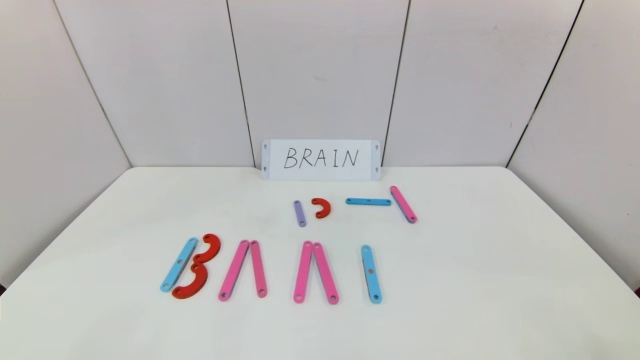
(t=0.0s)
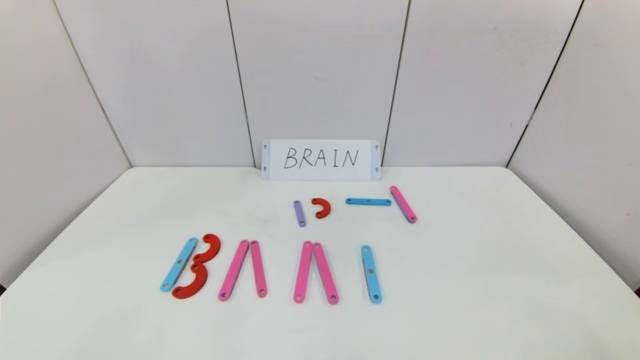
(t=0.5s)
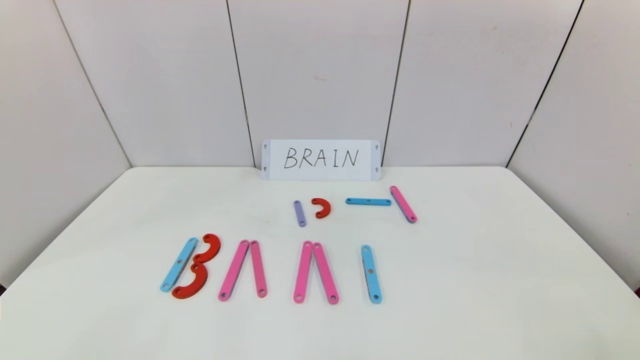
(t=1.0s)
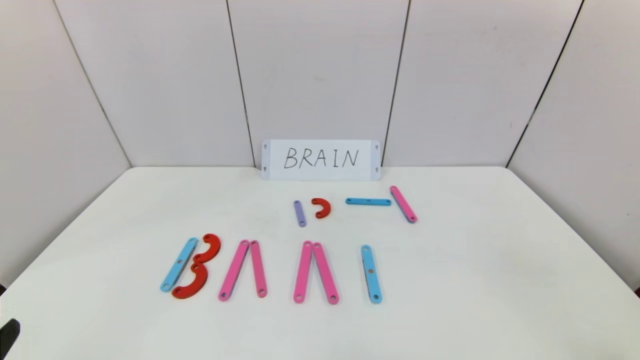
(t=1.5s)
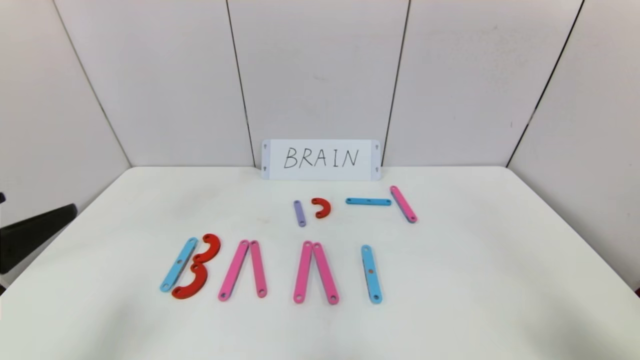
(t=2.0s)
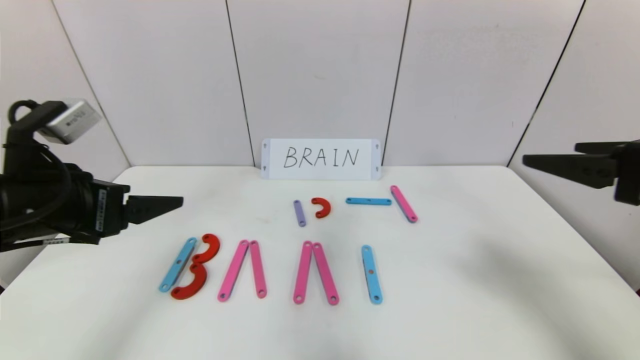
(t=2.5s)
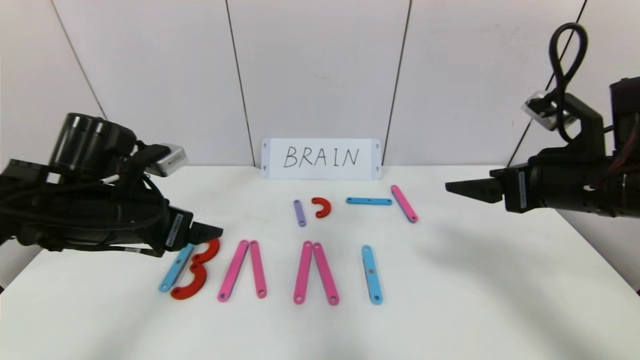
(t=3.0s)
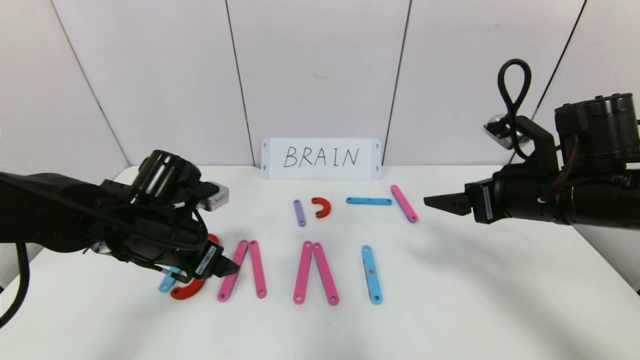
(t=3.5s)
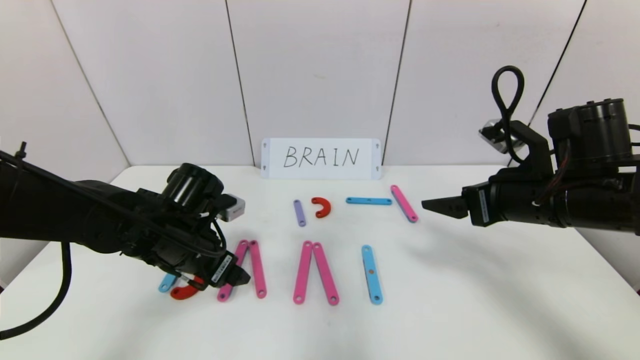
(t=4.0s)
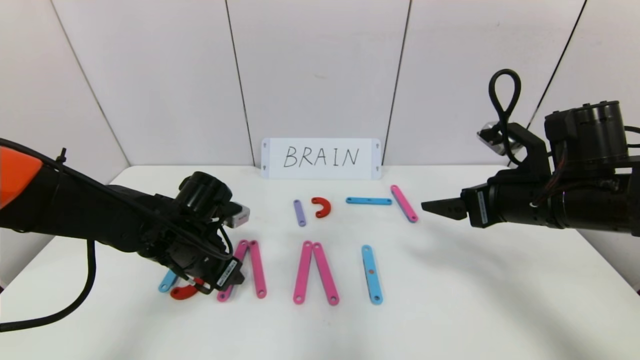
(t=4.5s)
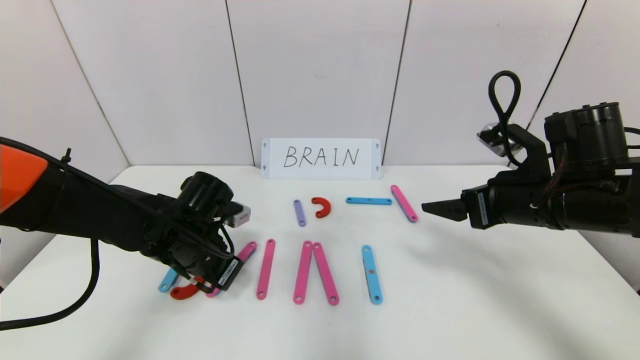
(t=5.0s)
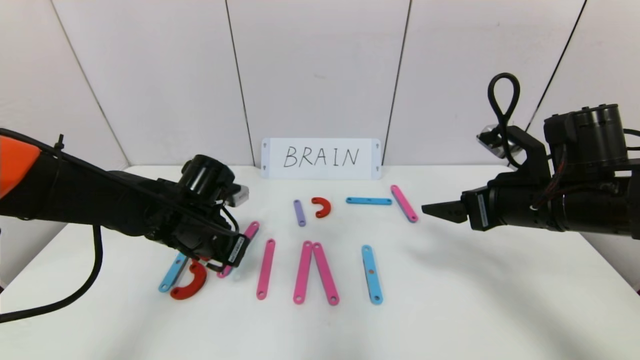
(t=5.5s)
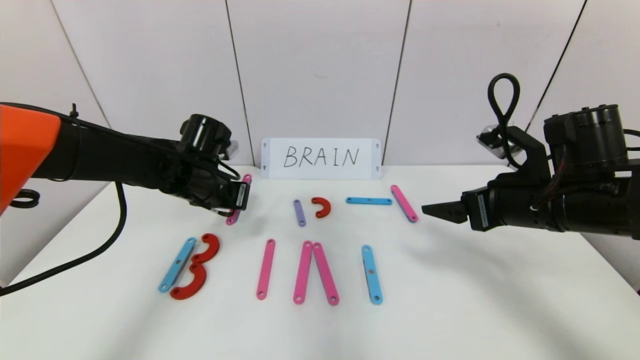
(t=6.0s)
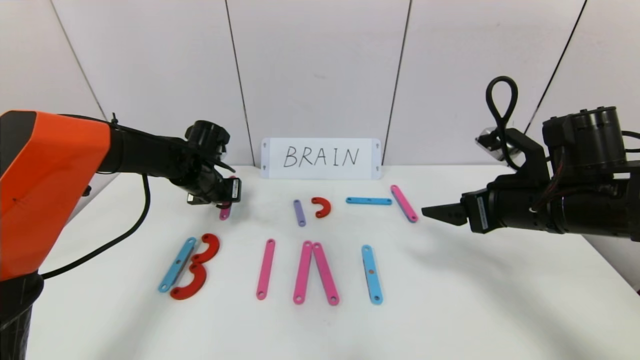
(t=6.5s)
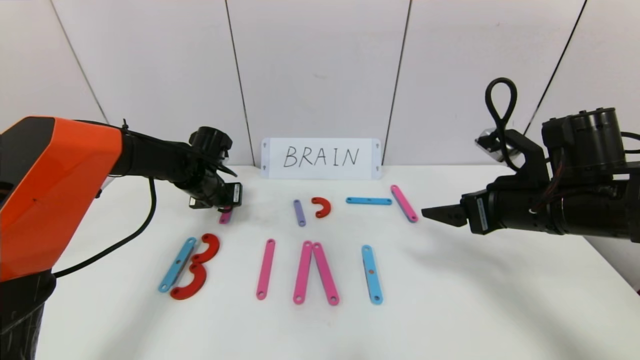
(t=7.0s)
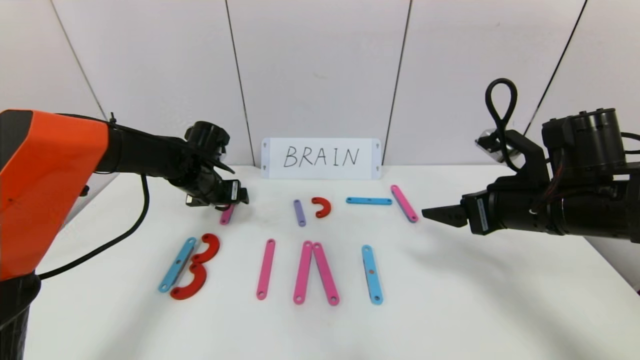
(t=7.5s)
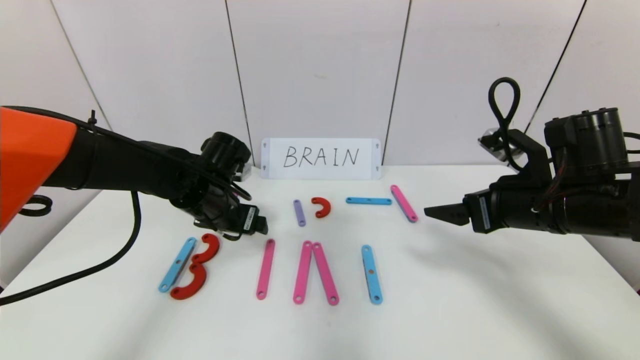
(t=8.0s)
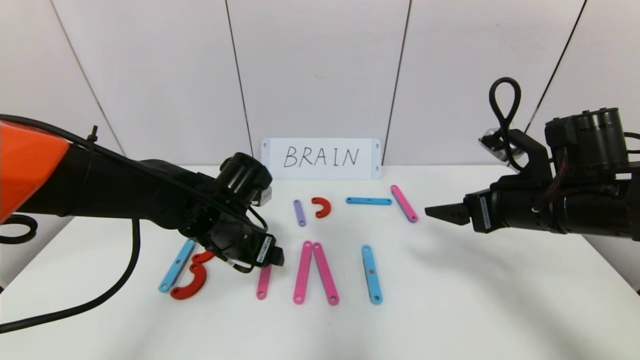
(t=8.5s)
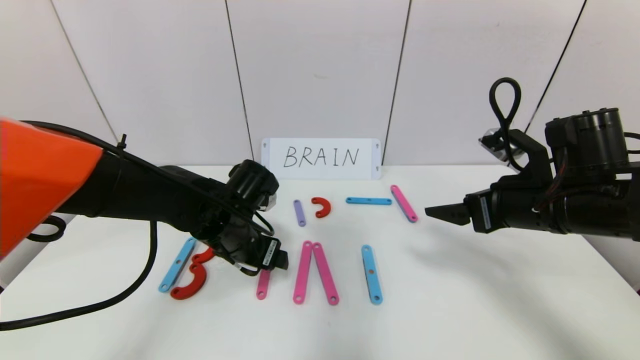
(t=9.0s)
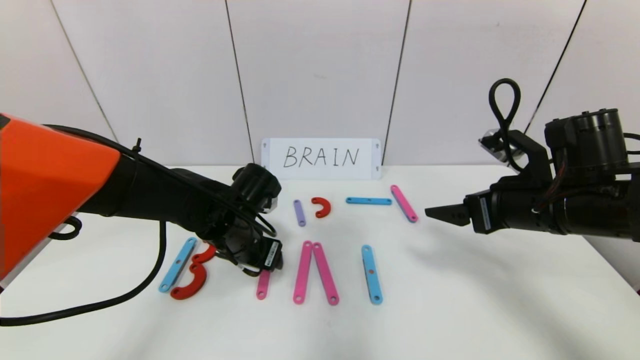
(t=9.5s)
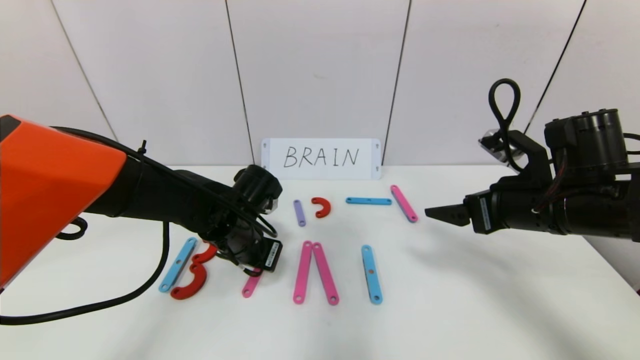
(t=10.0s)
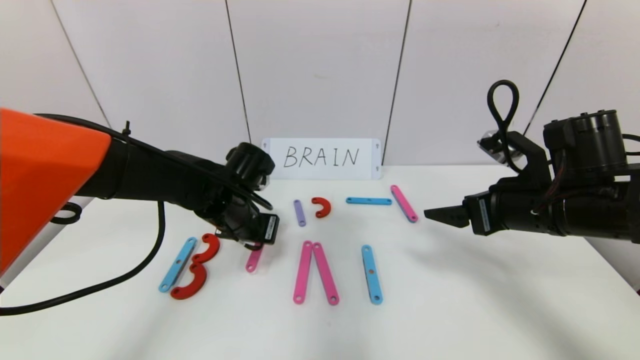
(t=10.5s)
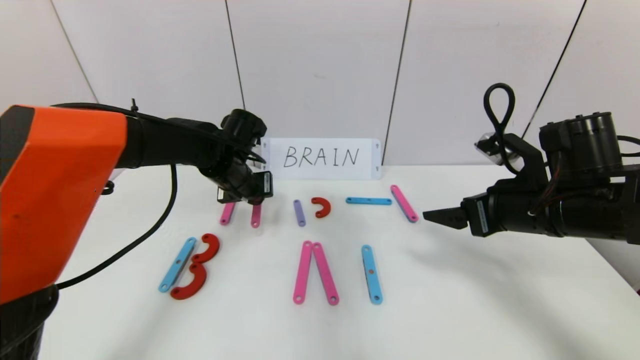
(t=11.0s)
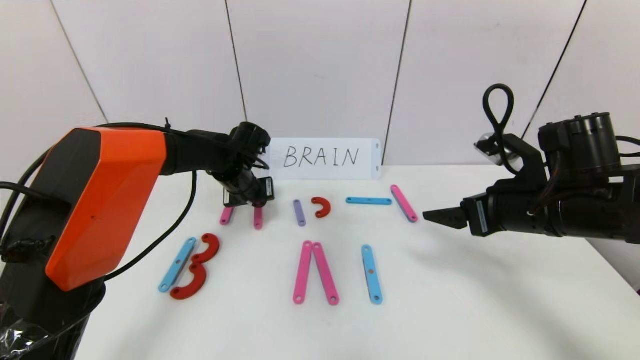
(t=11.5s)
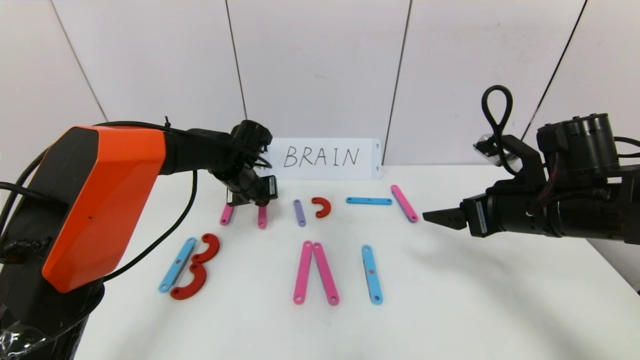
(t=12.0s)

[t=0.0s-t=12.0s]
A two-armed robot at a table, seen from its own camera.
Task of the whole recording: rearrange the word baai as brain.
t=0.0s to t=2.0s: The grippers both shift upward and forward by roughly 20 cm.
t=2.0s to t=4.0s: The left gripper is displaced forward, downward and to the right by roughly 25 cm, while the right gripper is displaced forward by some 20 cm.
t=4.0s to t=6.0s: The left gripper heads forward, covering some 10 cm, and closes its fingers.
t=6.0s to t=8.0s: The left gripper reaches roughly 5 cm forward, then returns, and opens up.
t=8.0s to t=10.0s: The left gripper moves approximately 5 cm, and closes.
t=10.0s to t=12.0s: The left gripper is displaced forward by roughly 10 cm.

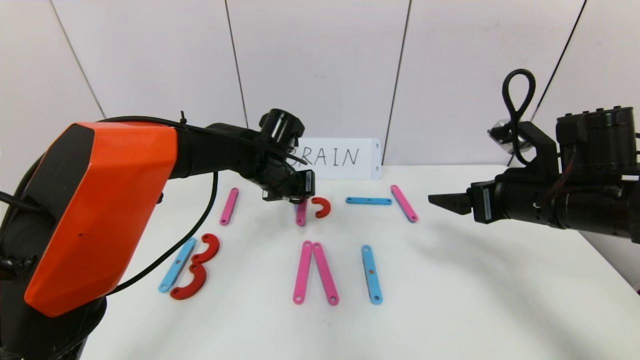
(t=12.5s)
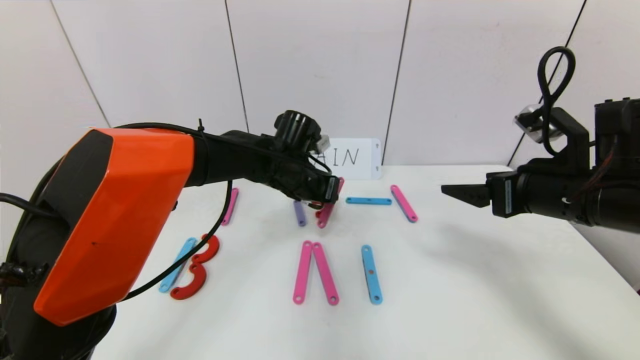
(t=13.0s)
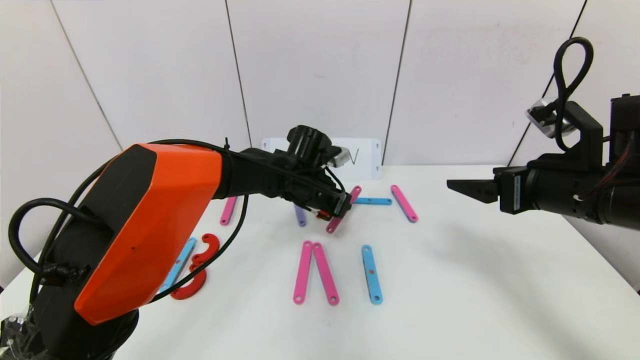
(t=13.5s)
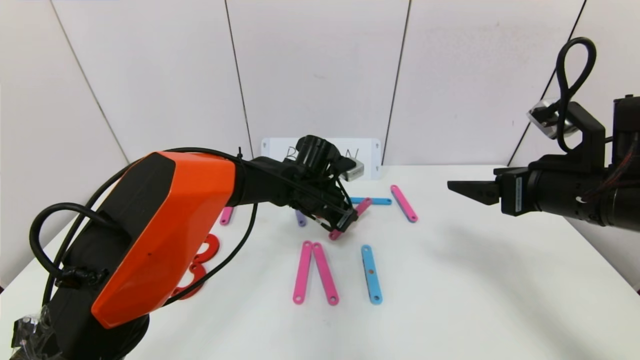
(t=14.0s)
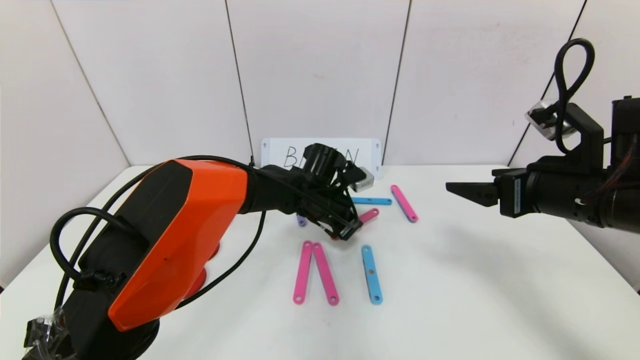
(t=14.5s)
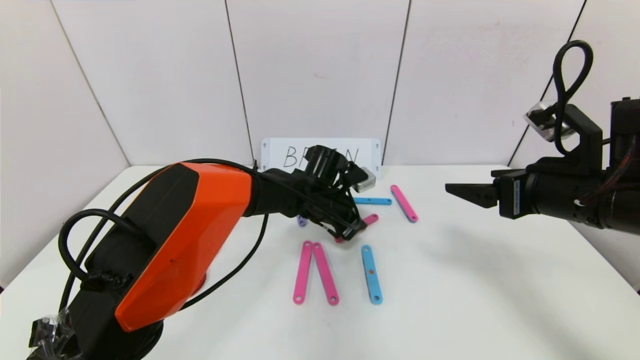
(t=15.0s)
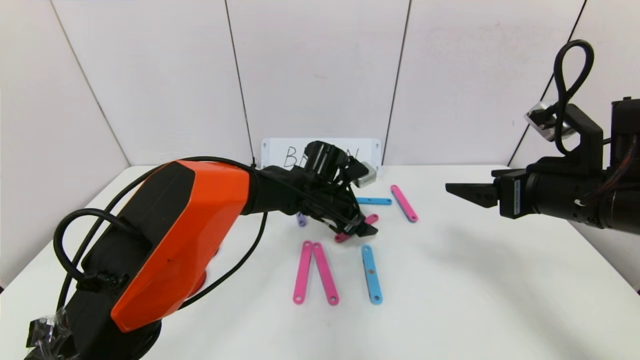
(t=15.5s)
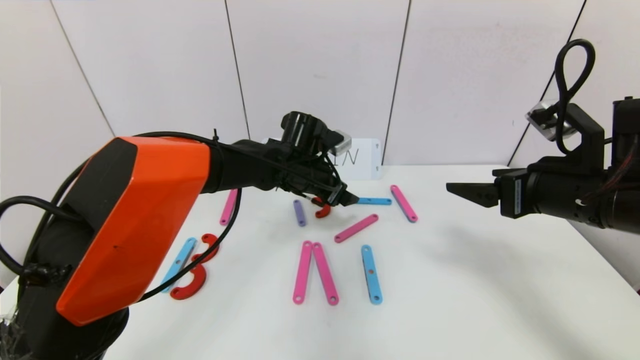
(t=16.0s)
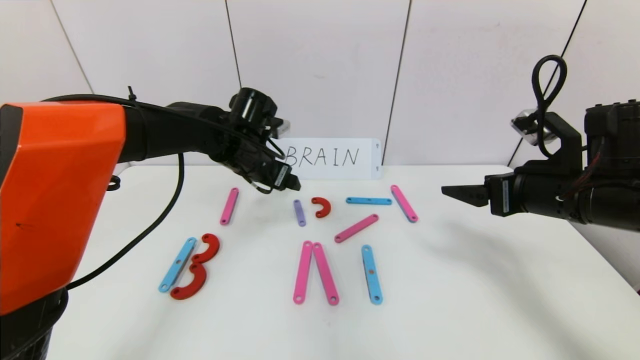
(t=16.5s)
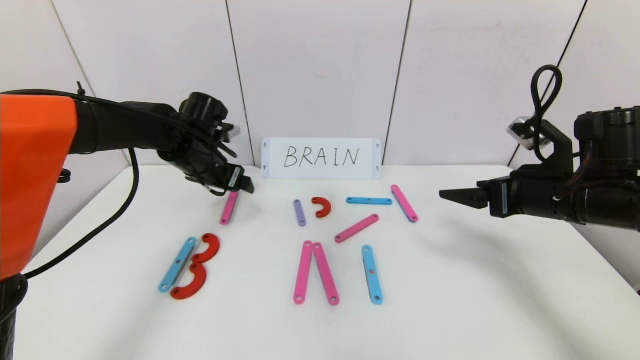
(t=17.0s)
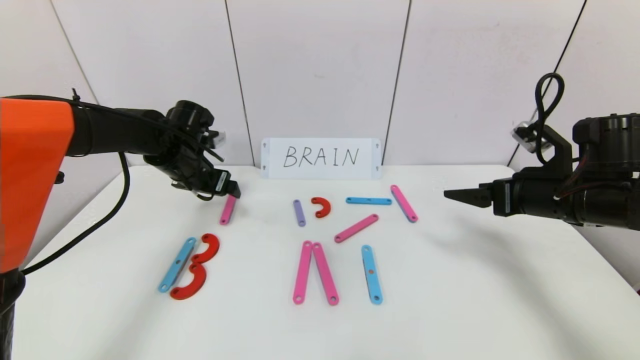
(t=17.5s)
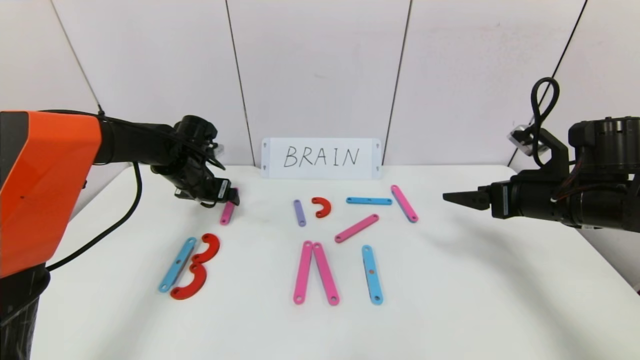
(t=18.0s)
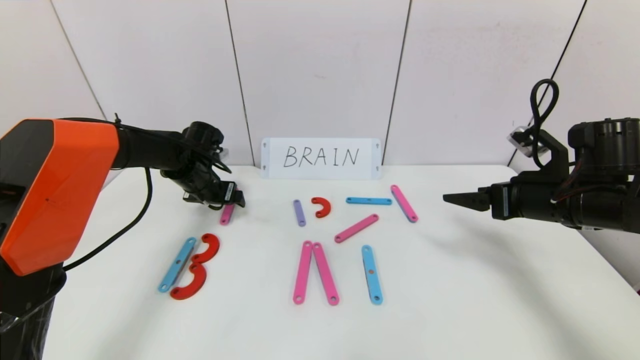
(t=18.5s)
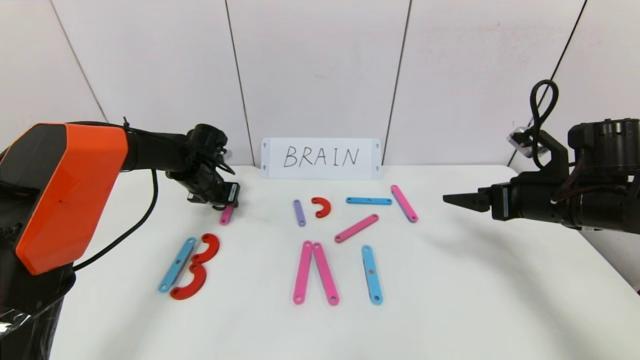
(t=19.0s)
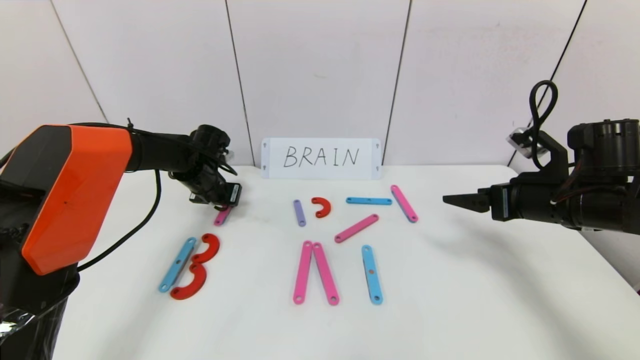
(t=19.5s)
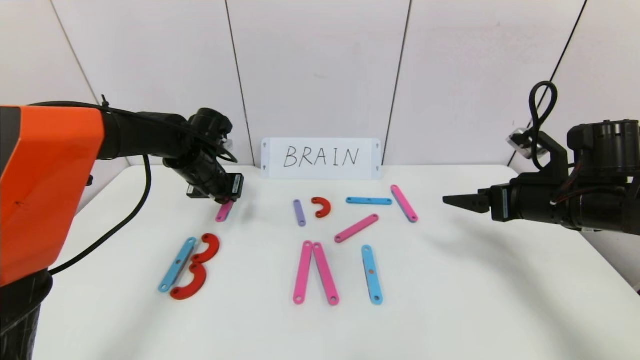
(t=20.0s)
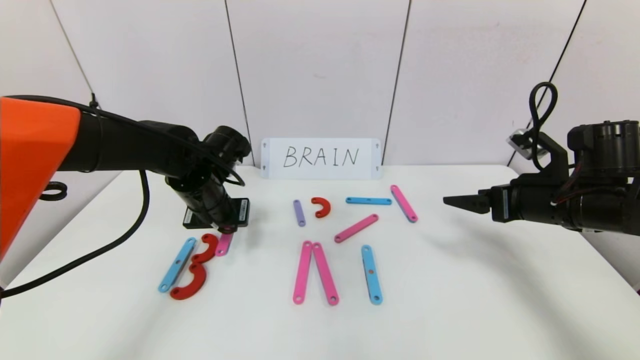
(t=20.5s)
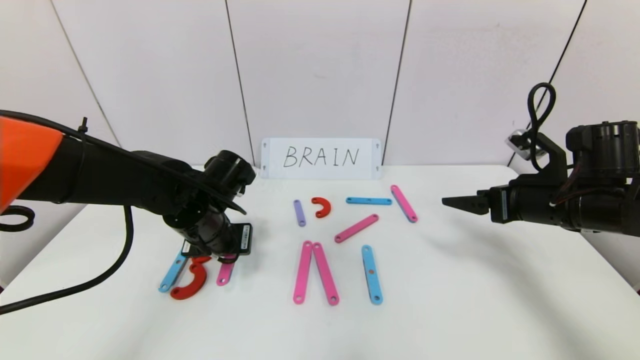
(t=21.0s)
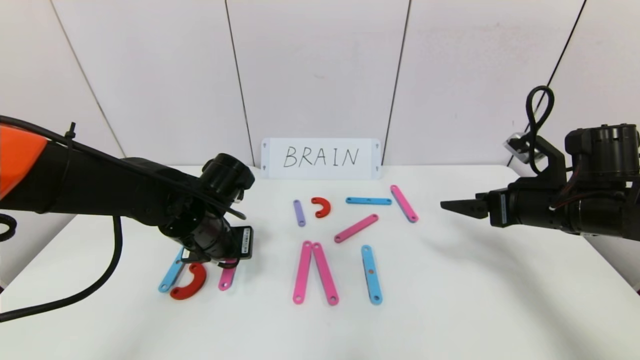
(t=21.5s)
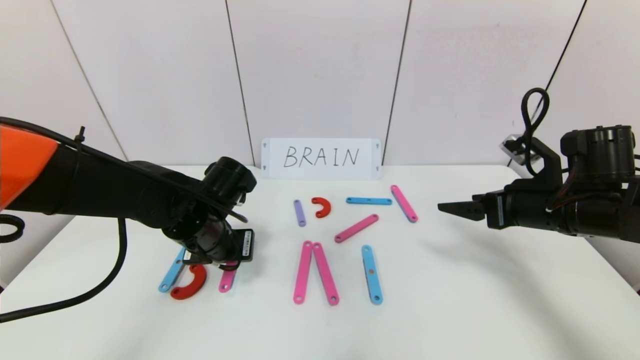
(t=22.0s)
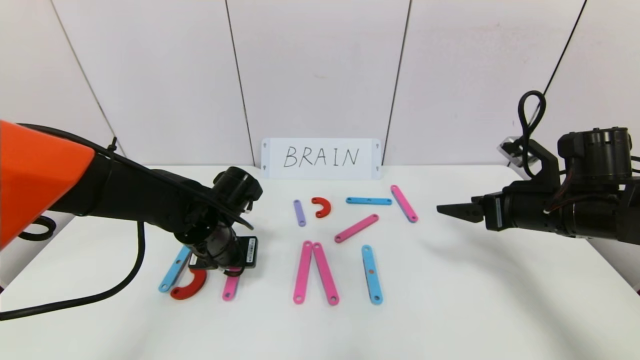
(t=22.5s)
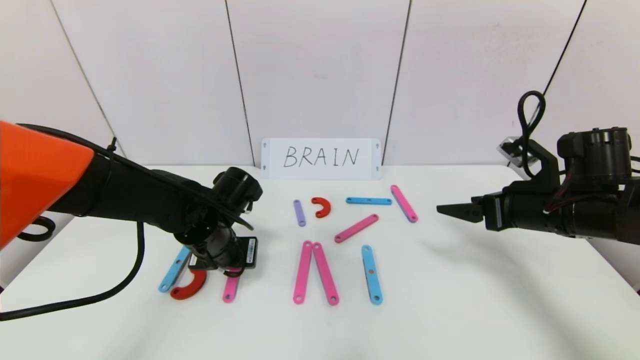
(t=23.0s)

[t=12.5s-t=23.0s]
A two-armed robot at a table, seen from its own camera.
Task of the whole recording: rearrange the word baai as brain.
Step, t=12.5s to t=15.5s: Disassemble the second character A.
t=12.5s to t=14.5s: The left gripper is displaced to the right and downward by some 10 cm.
t=14.5s to t=16.5s: The left gripper goes about 15 cm to the left and upward, and opens its fingers.
t=16.5s to t=19.0s: The right gripper shifts by about 5 cm. Meanwhile the left gripper is displaced to the left, downward and forward by some 15 cm, and closes its fingers.
t=19.0s to t=21.0s: The left gripper travels backward and to the right by some 15 cm.
t=21.0s to t=23.0s: There are only small adjustments of the grippers.
